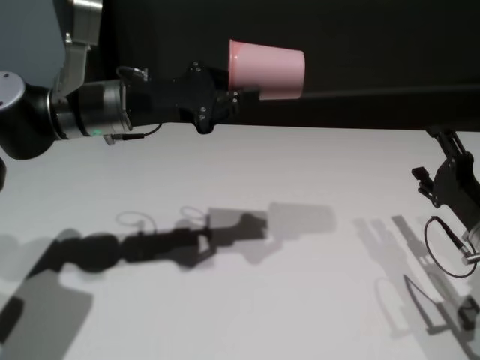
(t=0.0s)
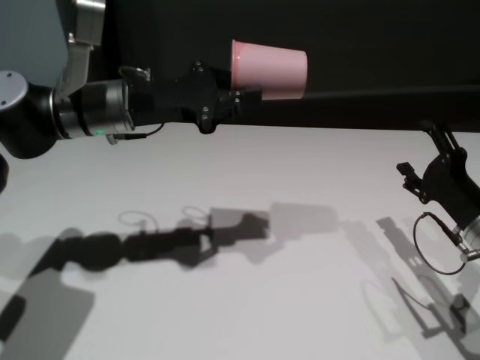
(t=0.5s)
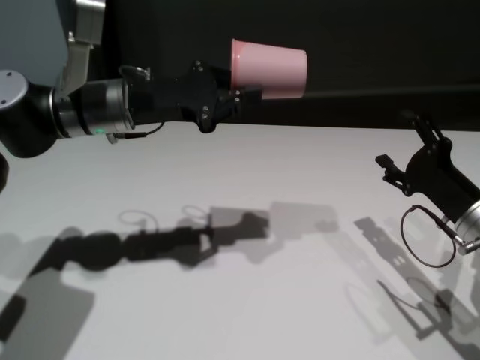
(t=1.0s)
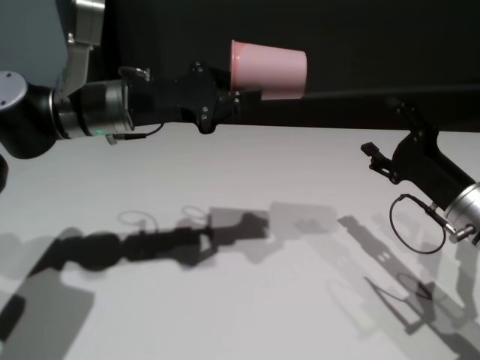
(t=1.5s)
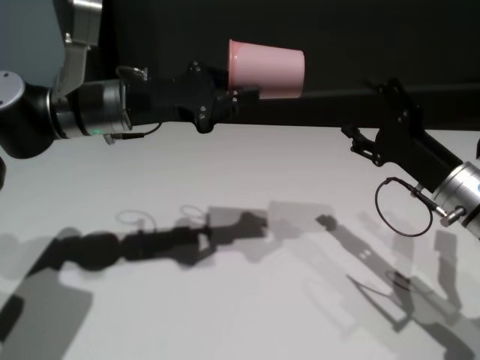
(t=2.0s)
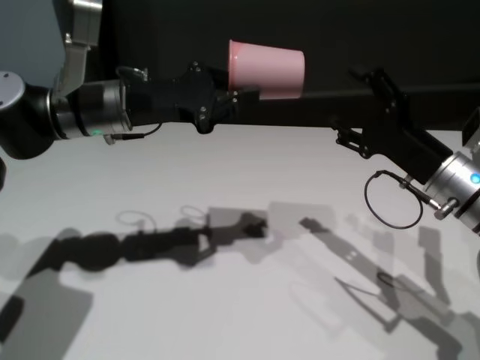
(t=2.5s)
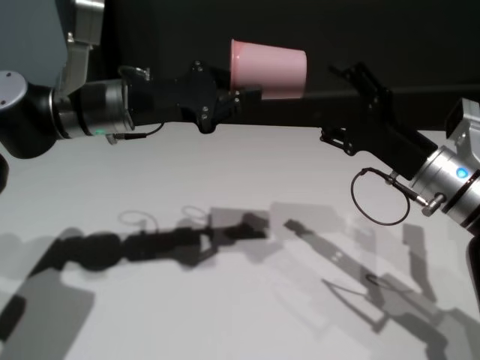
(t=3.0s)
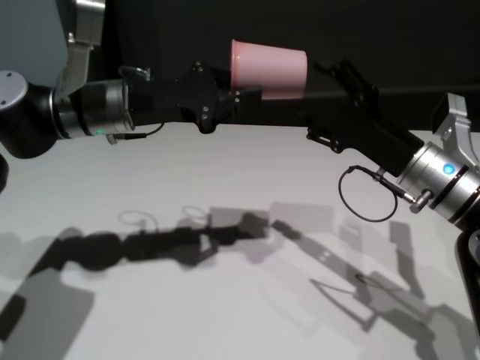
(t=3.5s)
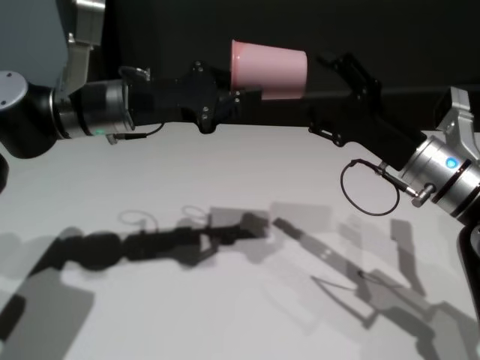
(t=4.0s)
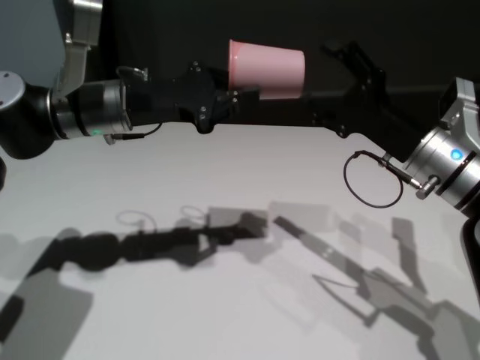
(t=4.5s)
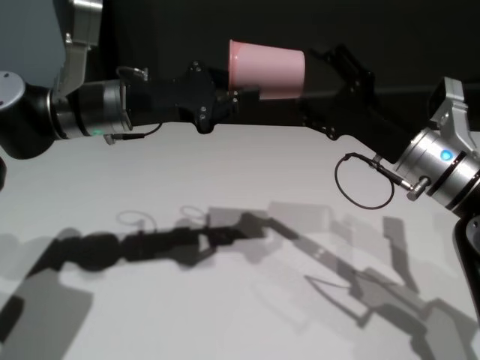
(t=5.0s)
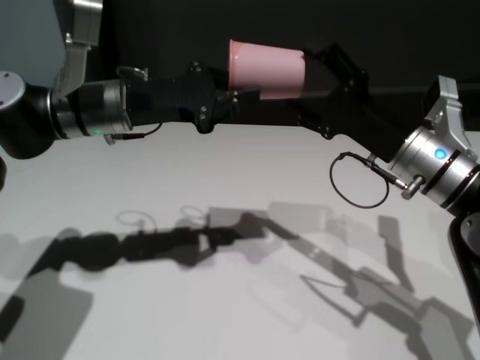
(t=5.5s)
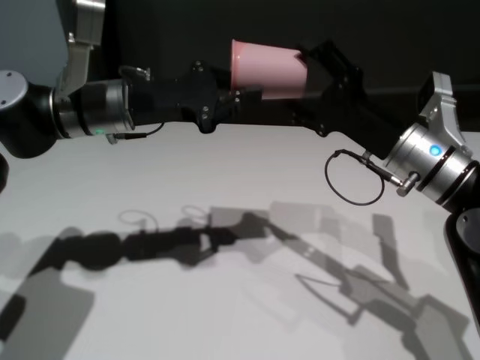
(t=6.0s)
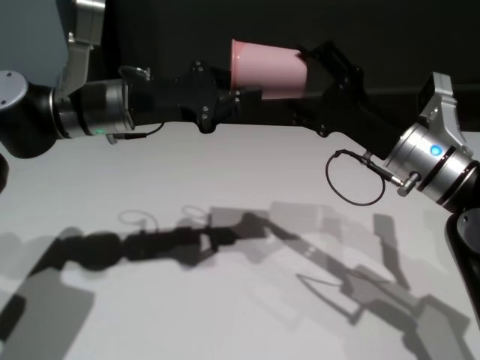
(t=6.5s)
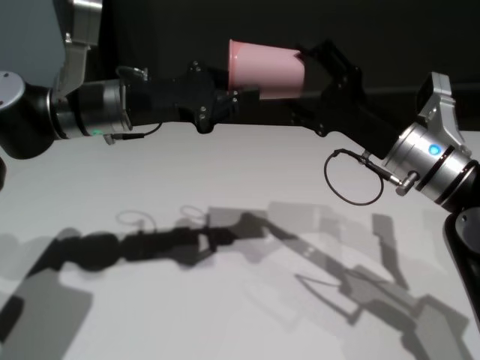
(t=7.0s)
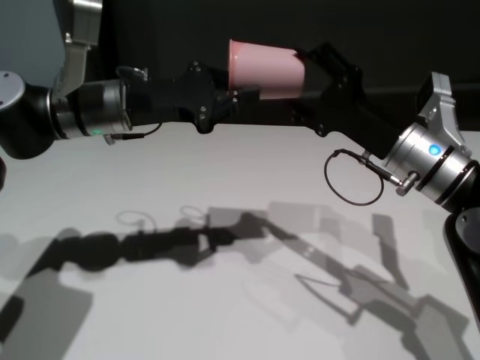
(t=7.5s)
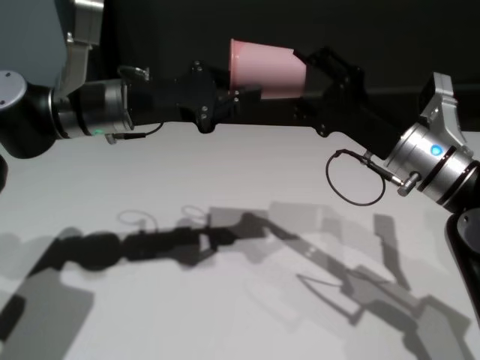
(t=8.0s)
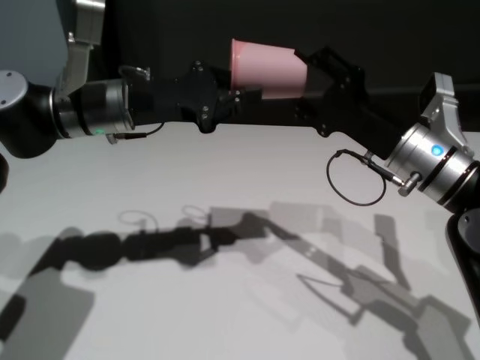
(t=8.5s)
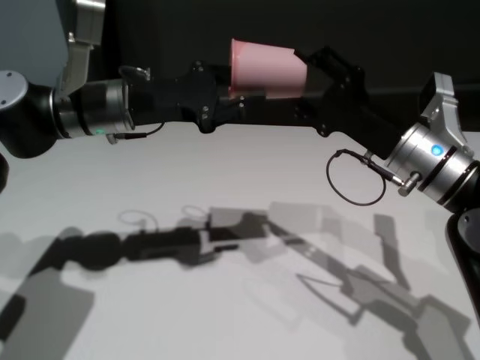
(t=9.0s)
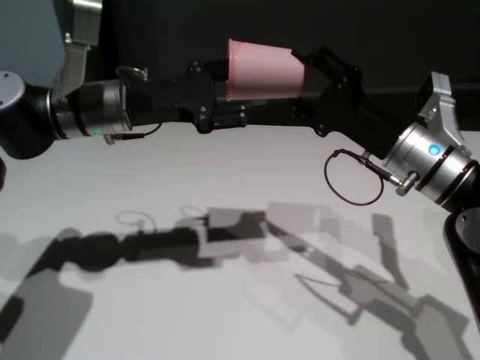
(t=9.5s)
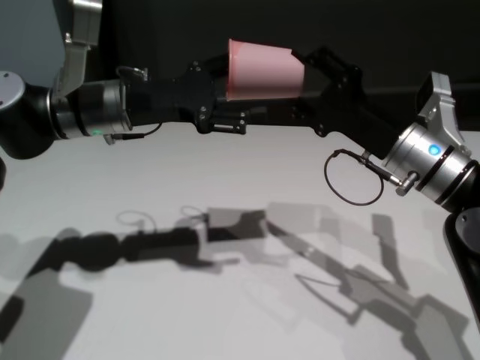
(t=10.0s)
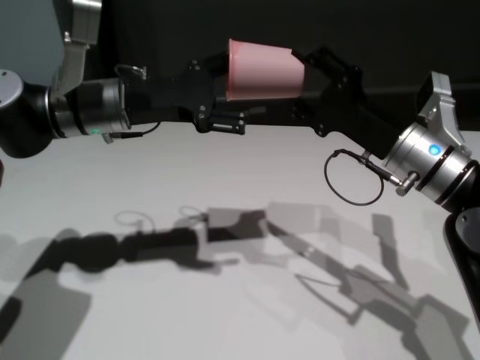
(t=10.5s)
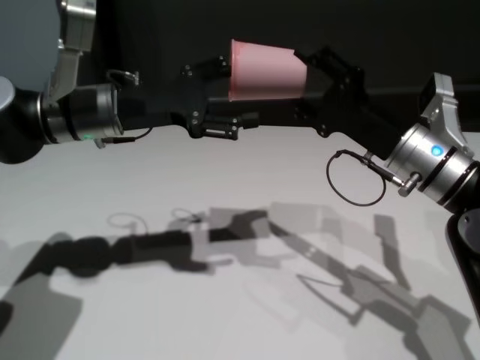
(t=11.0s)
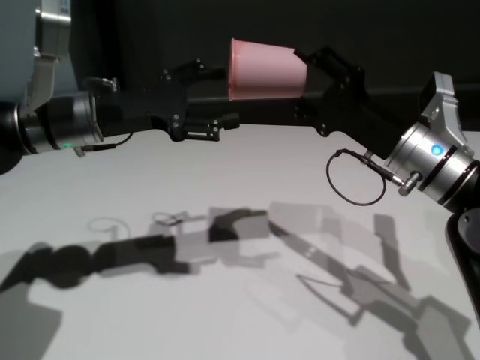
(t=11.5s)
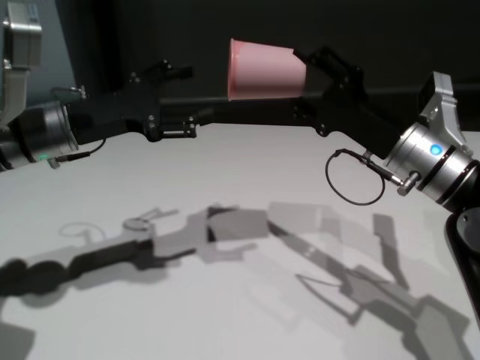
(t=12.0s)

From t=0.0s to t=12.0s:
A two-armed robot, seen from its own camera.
Task of the whole recording: On the white table pick up the cup with one hand and transfer it to the other hand before turning it over.
Step, from t=0.0s to t=11.5s: Pass the cup to the right gripper.

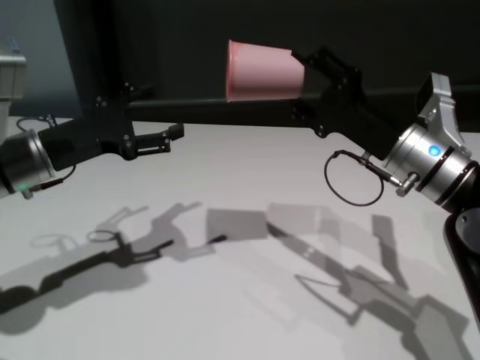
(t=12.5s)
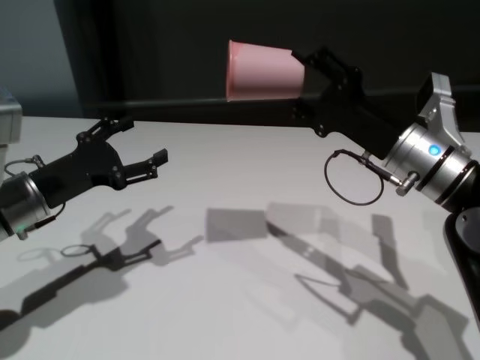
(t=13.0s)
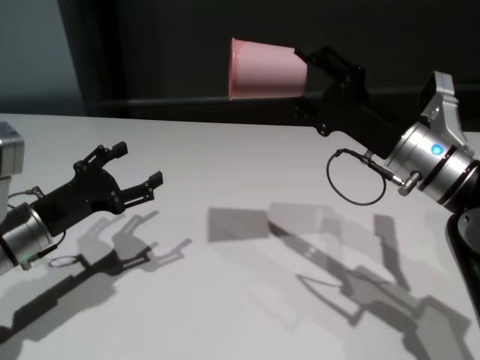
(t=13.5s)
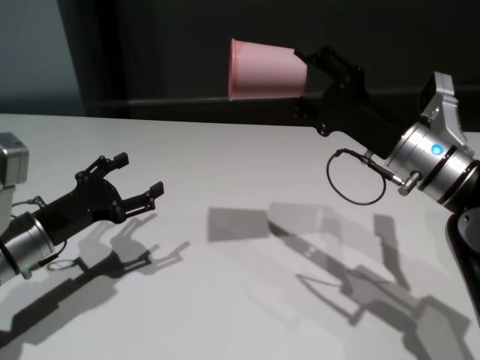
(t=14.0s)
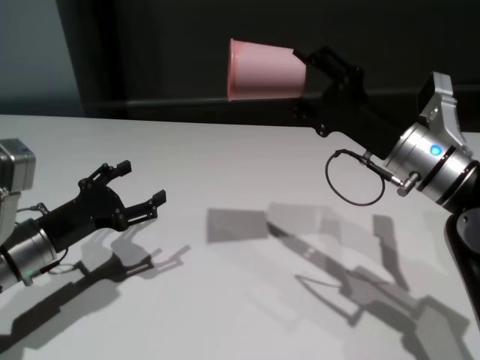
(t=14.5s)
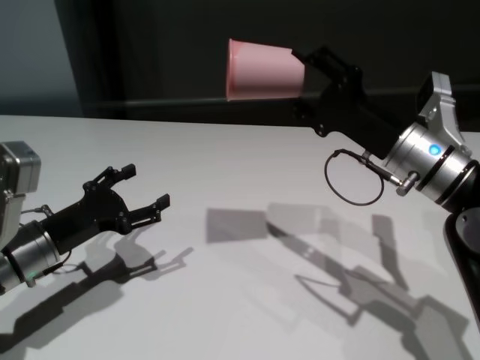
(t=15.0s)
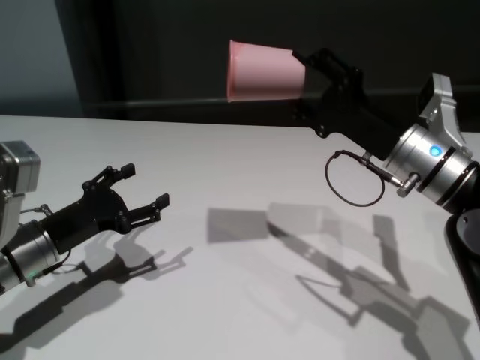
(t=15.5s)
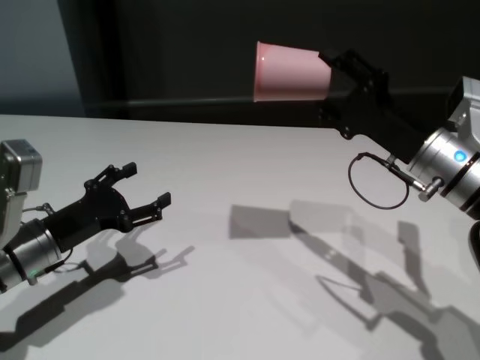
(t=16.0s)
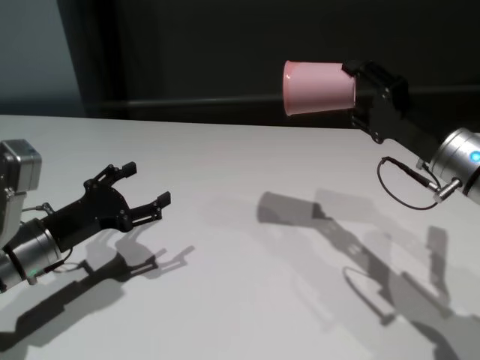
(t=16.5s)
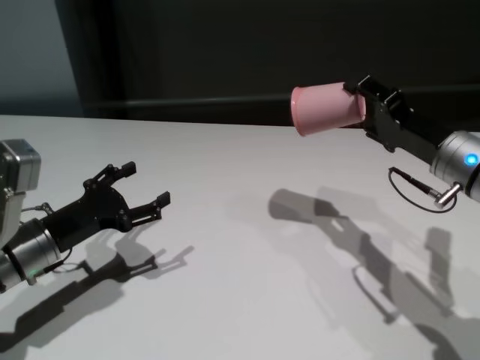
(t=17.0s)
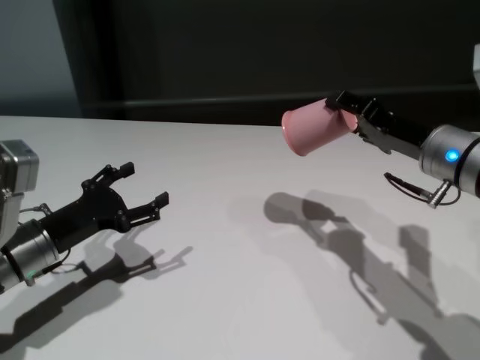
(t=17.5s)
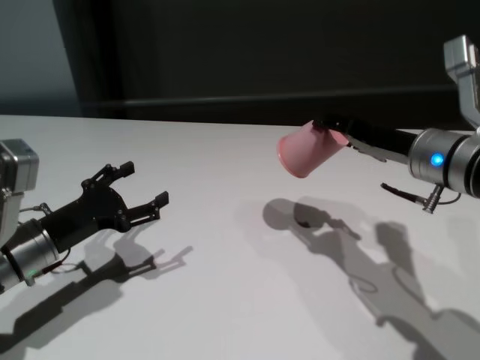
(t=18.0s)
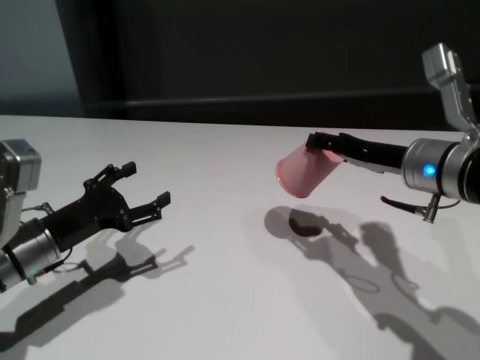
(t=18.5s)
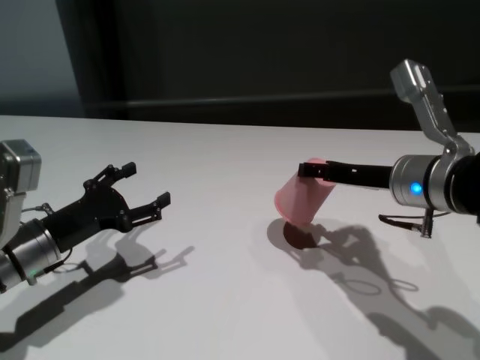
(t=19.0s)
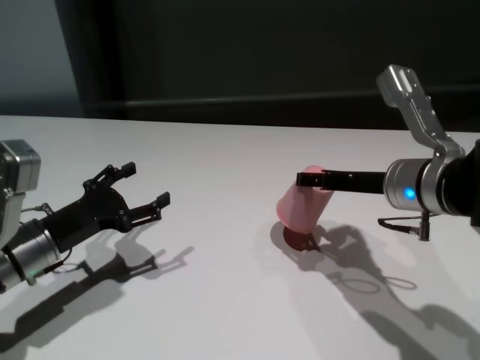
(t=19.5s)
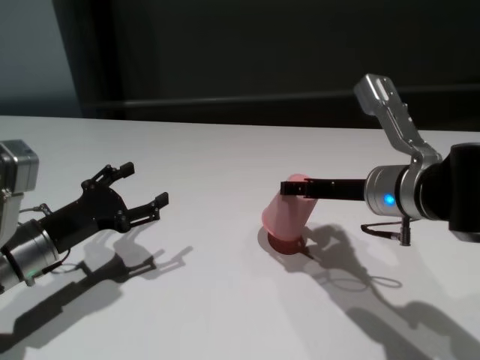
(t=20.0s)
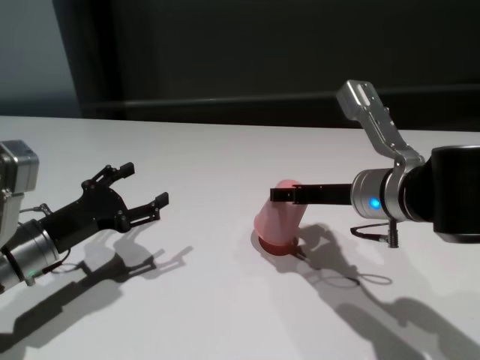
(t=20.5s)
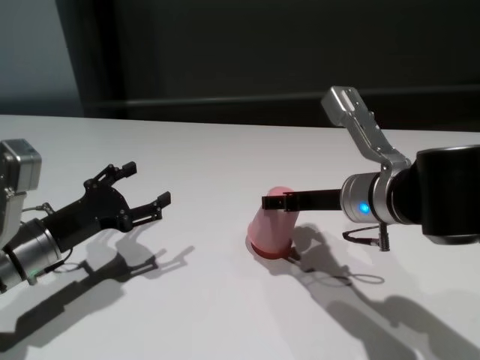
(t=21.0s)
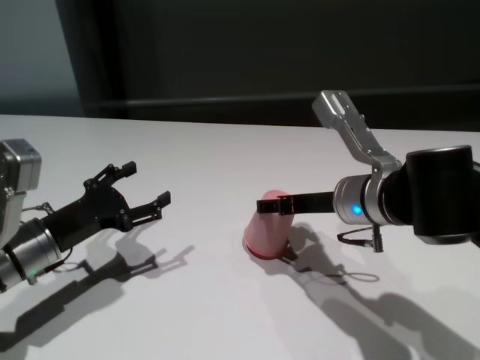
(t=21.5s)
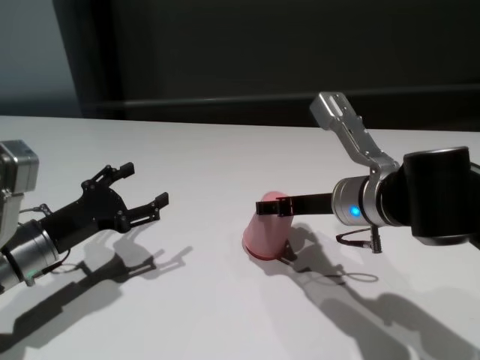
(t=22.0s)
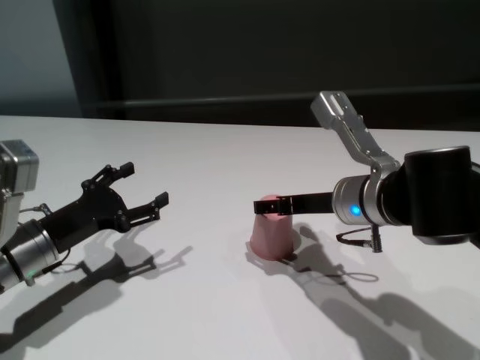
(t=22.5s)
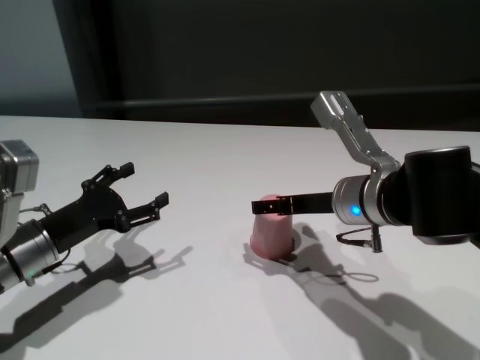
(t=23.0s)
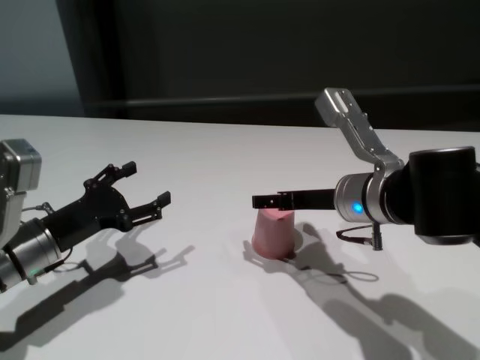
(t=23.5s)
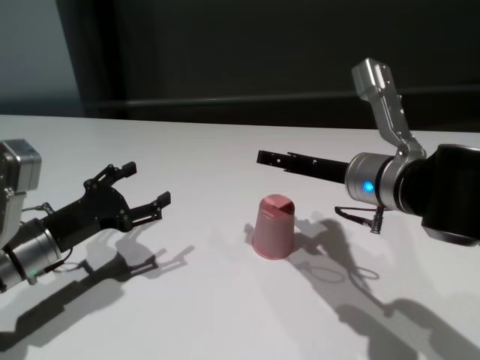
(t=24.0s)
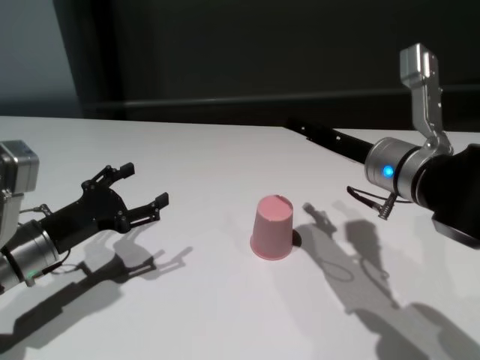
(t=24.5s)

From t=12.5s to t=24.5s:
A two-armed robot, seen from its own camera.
Task of the whole recording: On the white table pick up the cup with one hand and transfer it to the other hand before turning it over.
Step, from t=12.5s to t=23.5s: Place the cup on the table with right gripper.

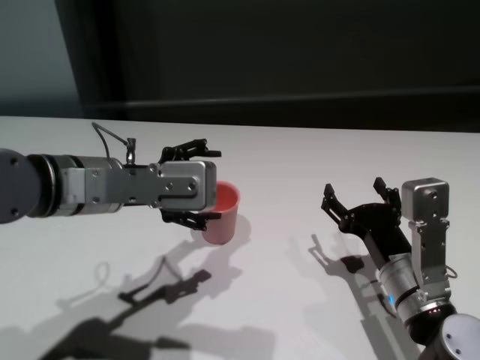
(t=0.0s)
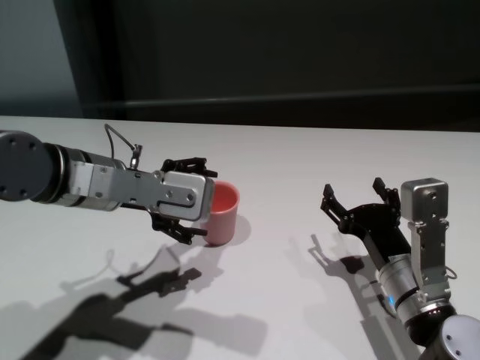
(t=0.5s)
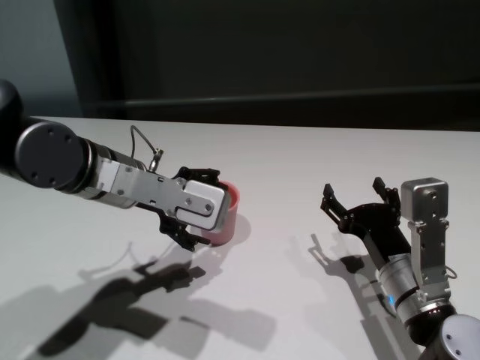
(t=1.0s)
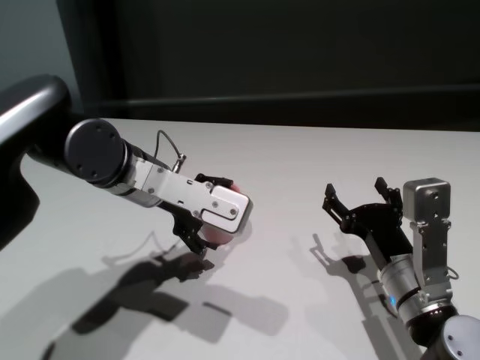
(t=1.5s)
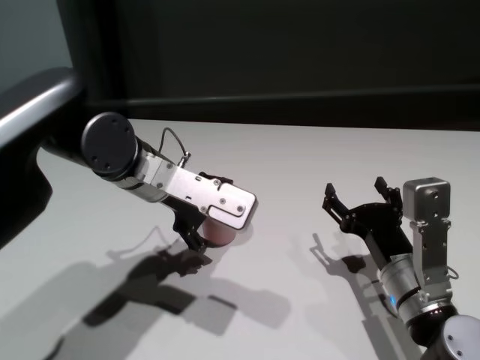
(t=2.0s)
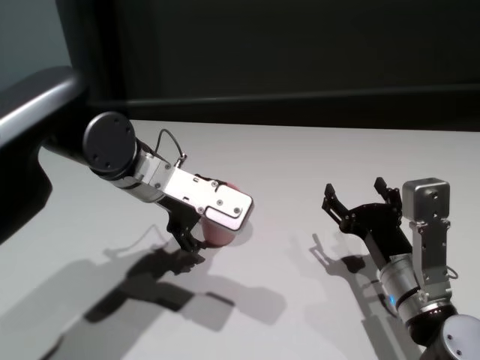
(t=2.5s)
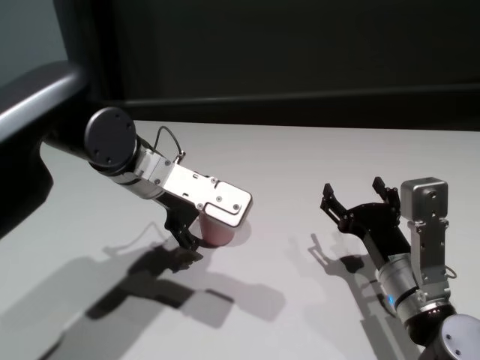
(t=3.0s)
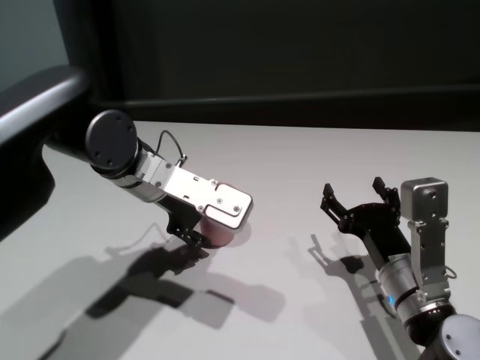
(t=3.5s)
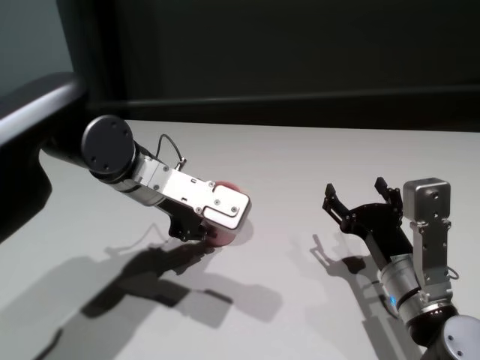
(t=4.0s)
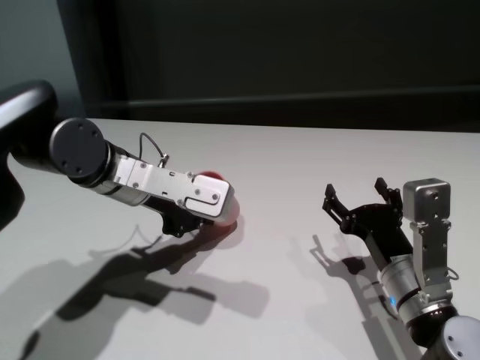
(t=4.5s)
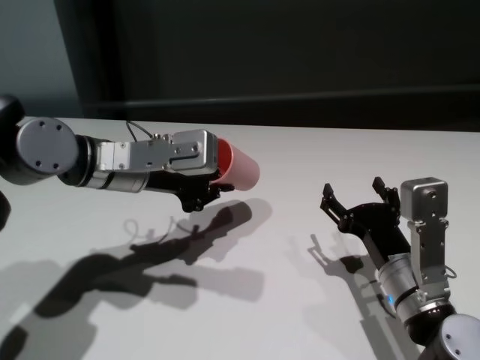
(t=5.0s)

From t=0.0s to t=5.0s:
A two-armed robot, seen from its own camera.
Task of the whole recording: On the white table pick up the cup with one hand and transfer it to the other hand before turning it over.
Step, from t=0.0s to t=4.0s: Grasp the cup with left gripper.
